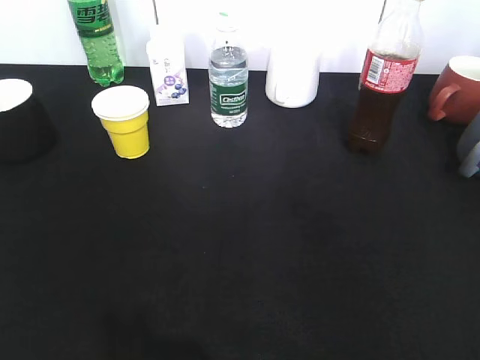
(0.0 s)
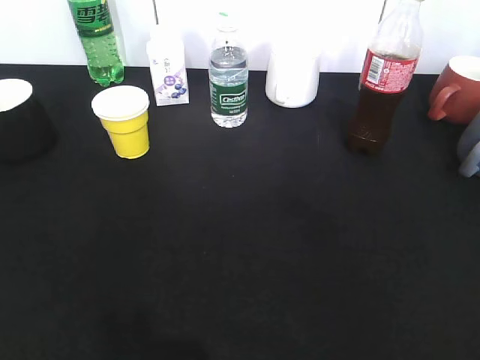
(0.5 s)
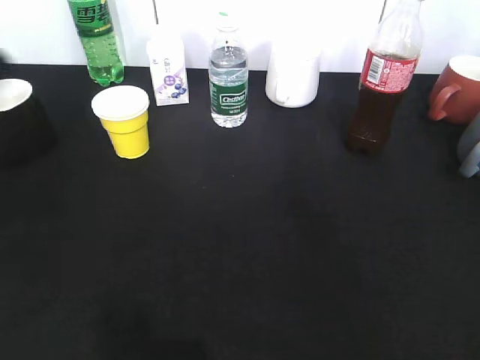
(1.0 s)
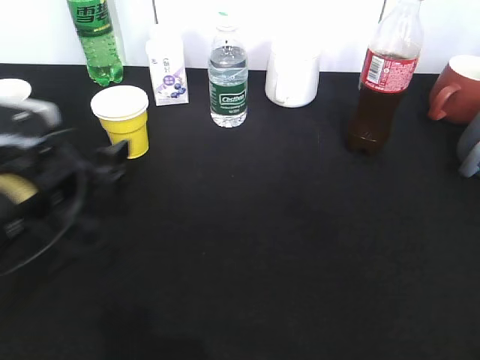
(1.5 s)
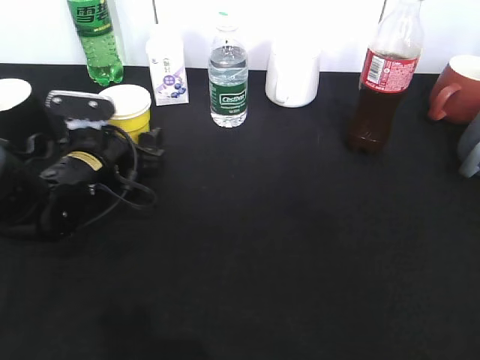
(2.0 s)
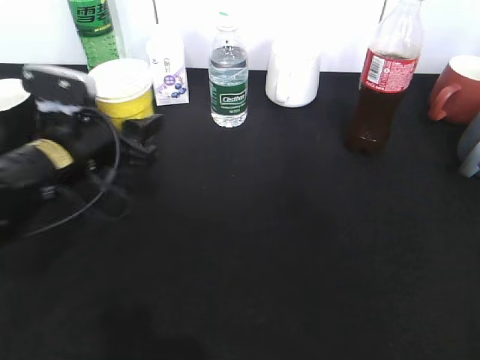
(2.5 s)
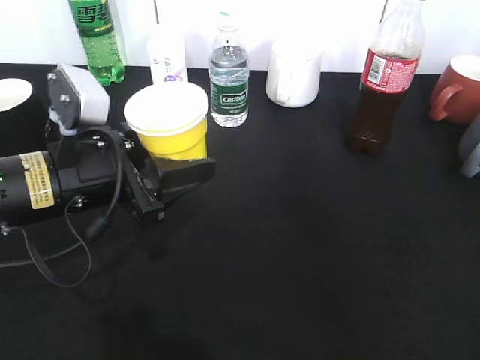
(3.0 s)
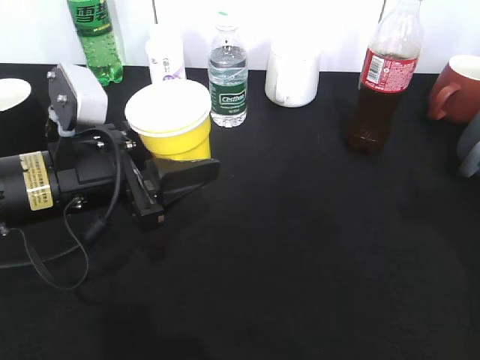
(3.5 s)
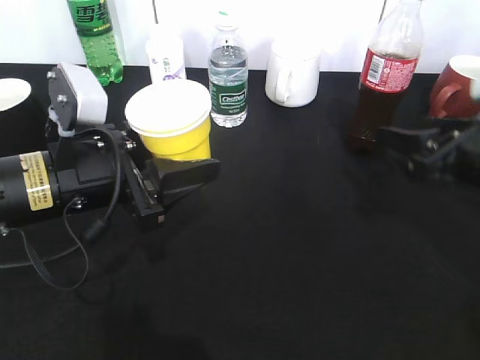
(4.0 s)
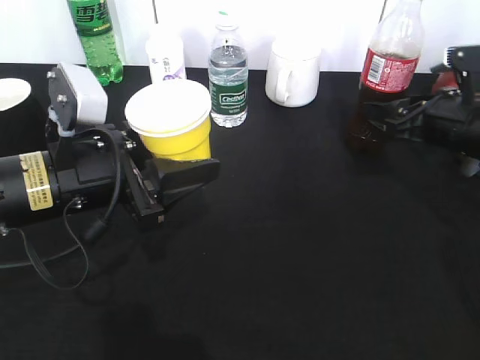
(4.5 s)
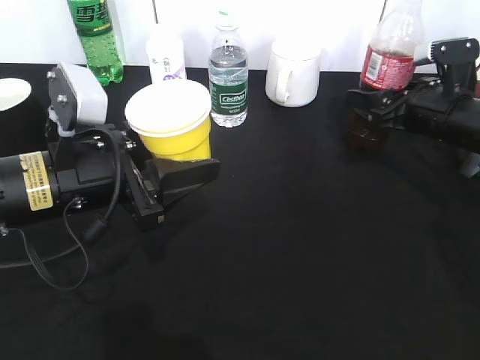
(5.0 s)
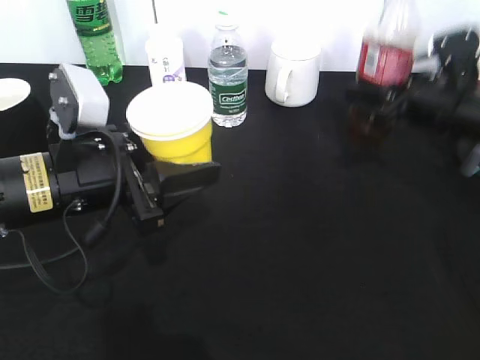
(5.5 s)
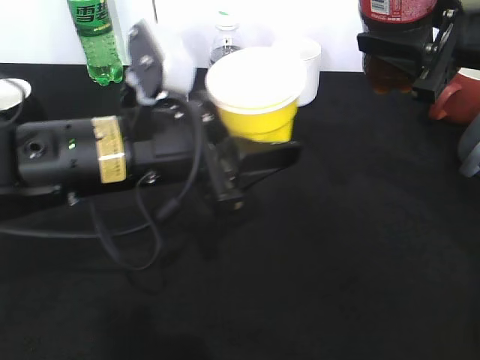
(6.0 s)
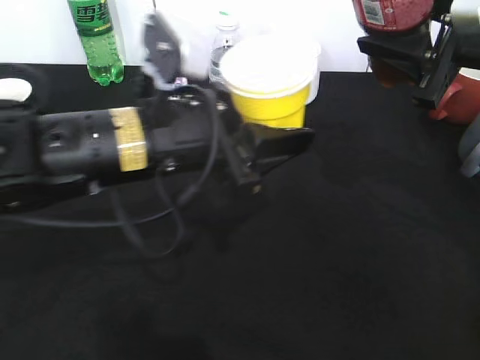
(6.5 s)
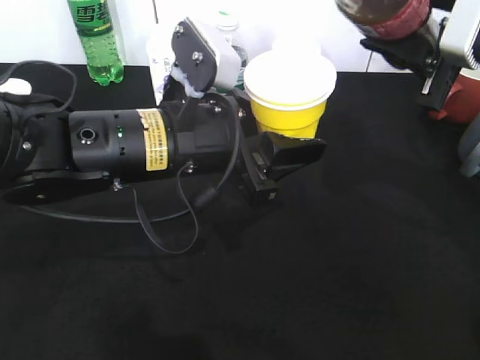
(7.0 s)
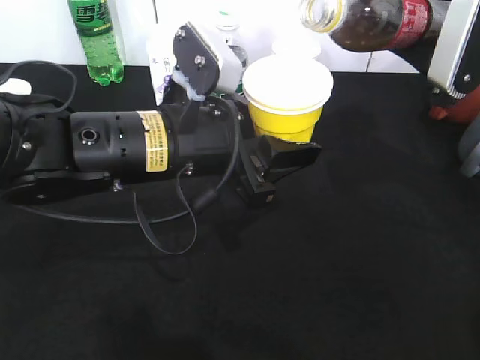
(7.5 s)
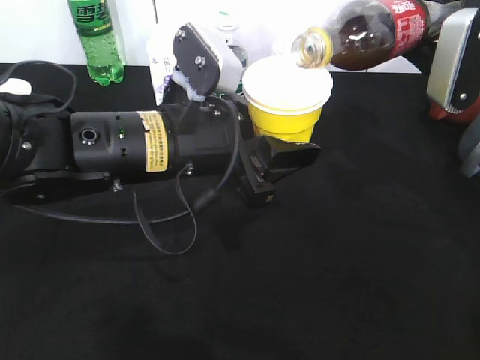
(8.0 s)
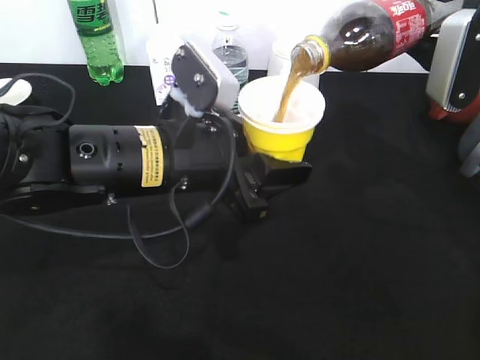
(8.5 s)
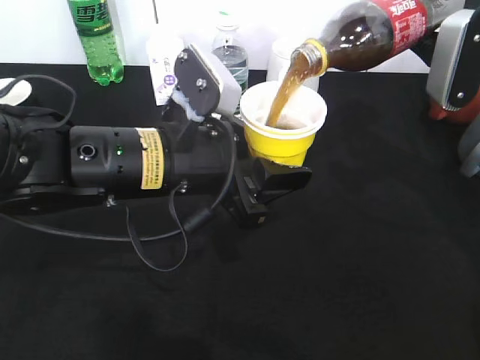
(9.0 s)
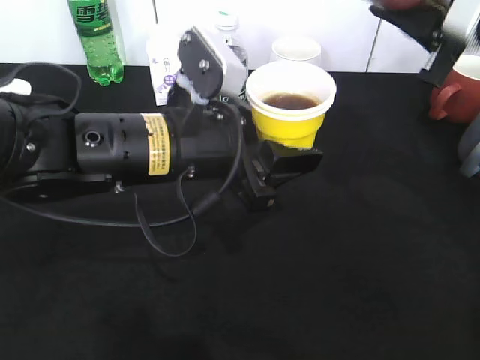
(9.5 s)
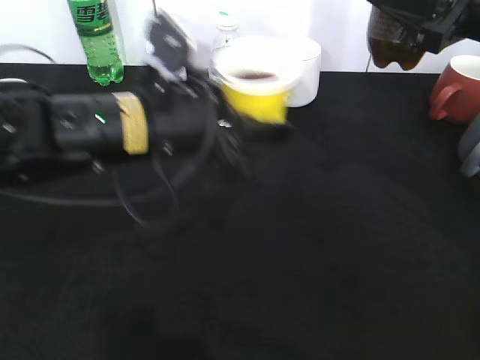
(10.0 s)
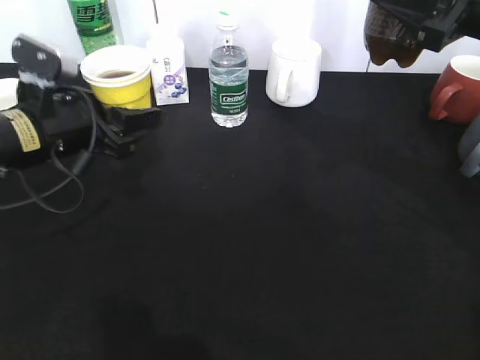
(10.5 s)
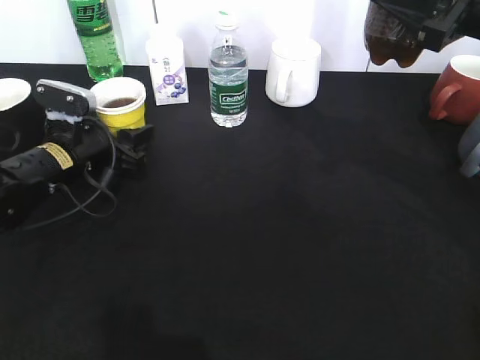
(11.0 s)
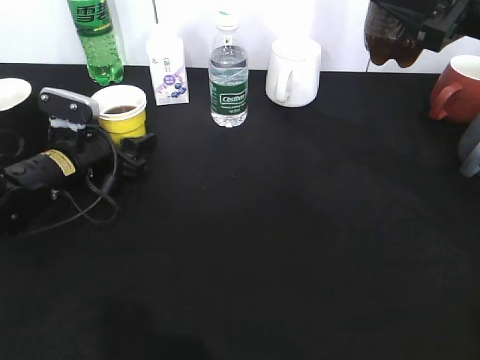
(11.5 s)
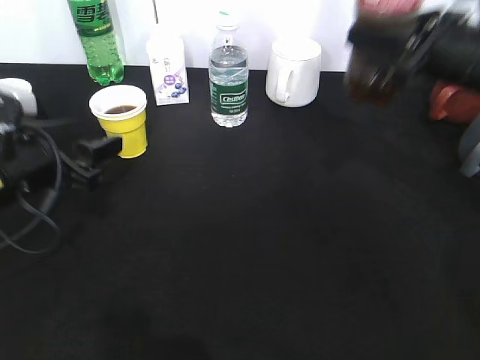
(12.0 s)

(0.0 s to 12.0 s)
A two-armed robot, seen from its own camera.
Step, 0.0 s - 2.0 s: Grasp the yellow paper cup with left gripper.
Step, 3.5 s - 5.0 s: Grasp the bottle with cola with right gripper.
Step, 6.0 s - 9.0 s: Pour the cola from bottle to cup with right gripper.
Step, 9.5 s - 11.5 s: Place the yellow paper cup on the table with left gripper.
0.0 s - 2.0 s: The left gripper heads forward, downward and to the right, covering roughly 40 cm, and opens.
2.0 s - 4.0 s: The left gripper travels backward and upward by about 15 cm, and closes up. The right gripper shifts some 25 cm forward.
4.0 s - 6.0 s: The left gripper travels to the right by about 5 cm; the right gripper goes approximately 10 cm upward, and closes its fingers.
10.0 s - 12.0 s: The right gripper is displaced downward by approximately 5 cm; the left gripper moves to the left, about 15 cm.

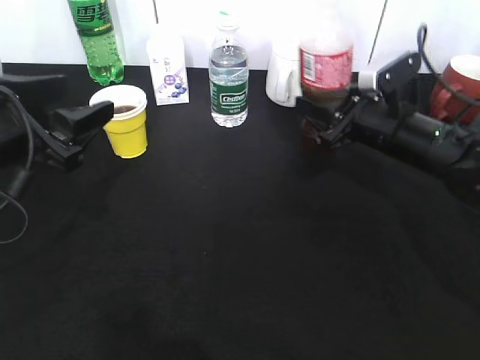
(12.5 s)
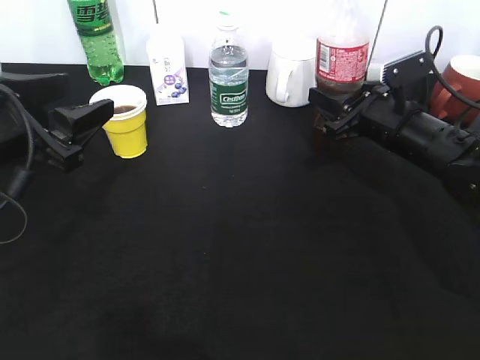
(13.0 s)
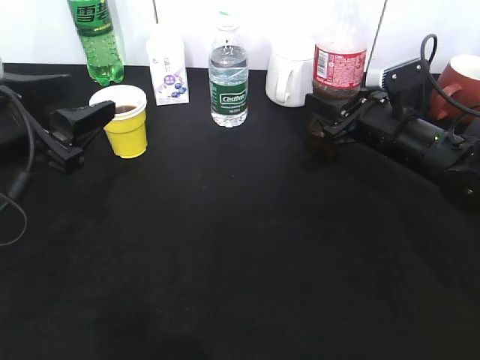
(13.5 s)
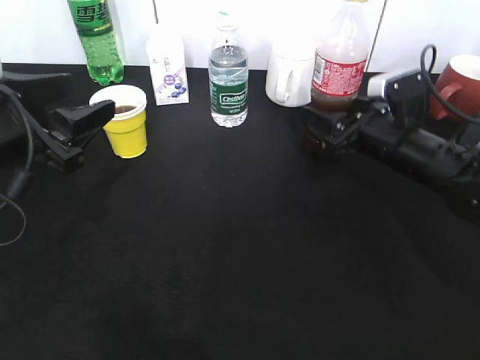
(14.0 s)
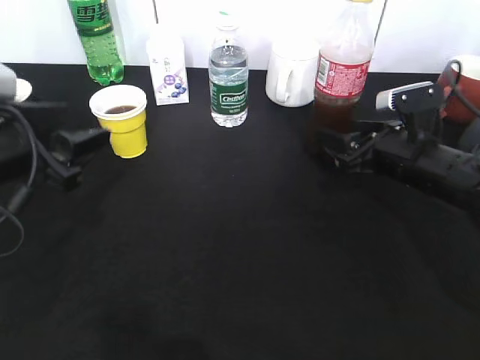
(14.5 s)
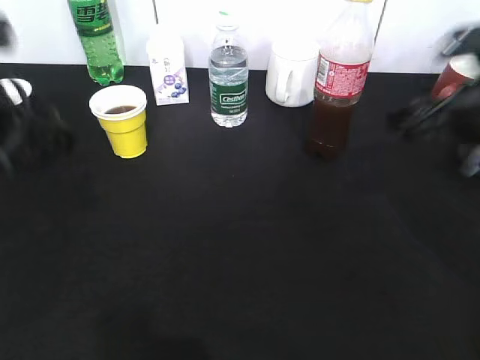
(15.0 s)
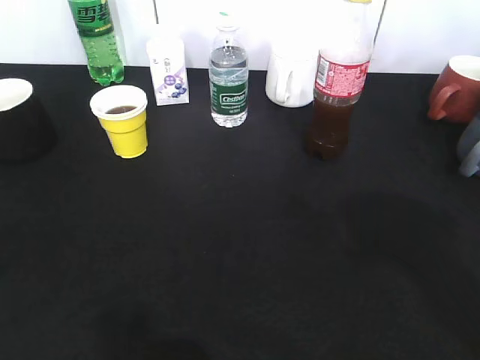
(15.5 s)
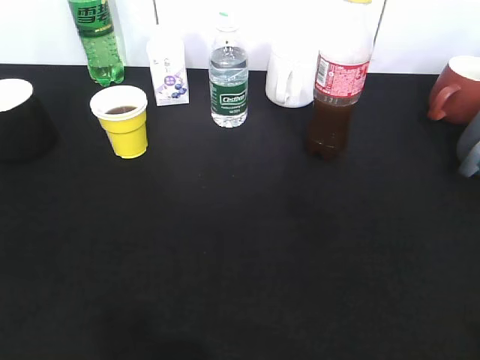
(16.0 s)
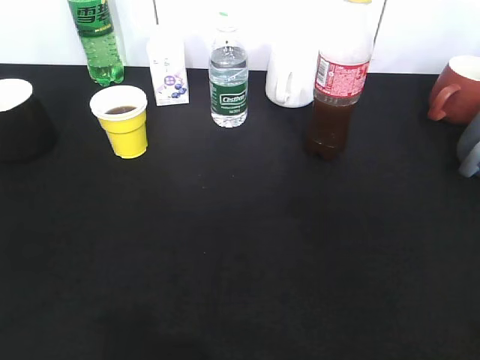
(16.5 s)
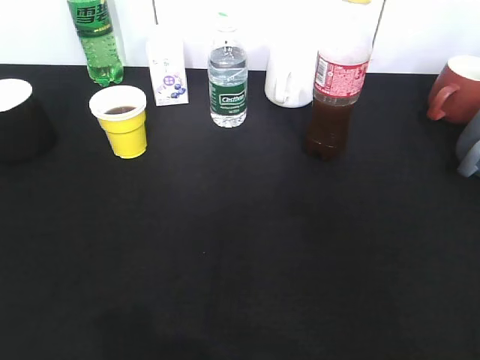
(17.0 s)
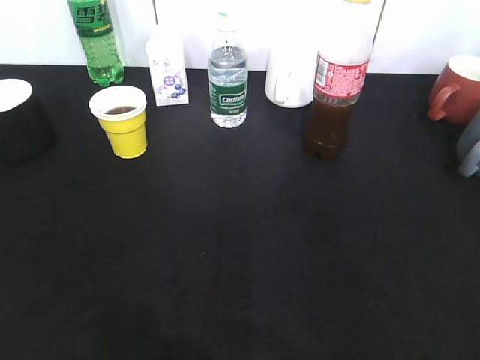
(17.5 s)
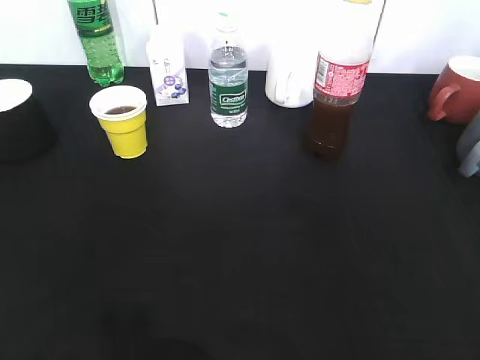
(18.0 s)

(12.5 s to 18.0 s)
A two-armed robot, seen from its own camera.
Step, 12.5 s - 14.5 s: Place the cola bottle on the table with right gripper.
12.5 s - 14.5 s: The right gripper opens its fingers.
14.5 s - 16.0 s: The right gripper goes roughly 35 cm backward and upward. The left gripper moves backward, about 20 cm.

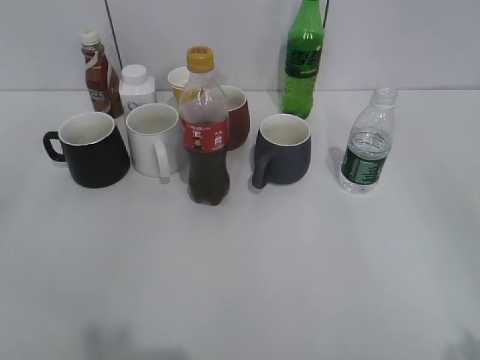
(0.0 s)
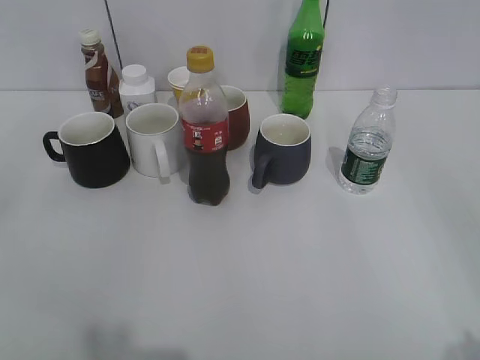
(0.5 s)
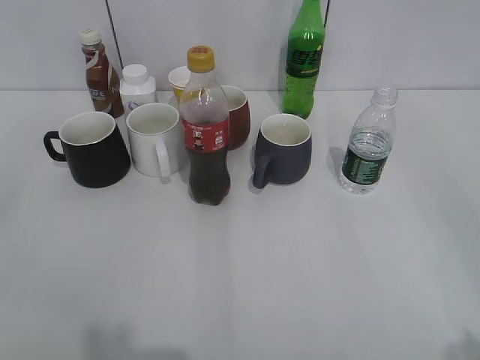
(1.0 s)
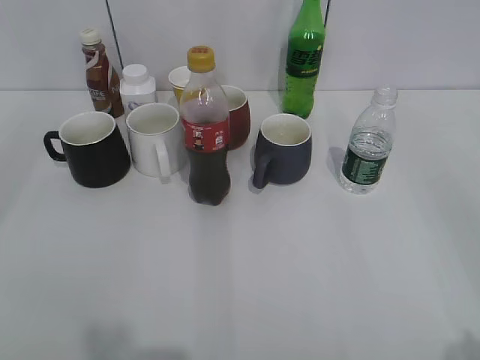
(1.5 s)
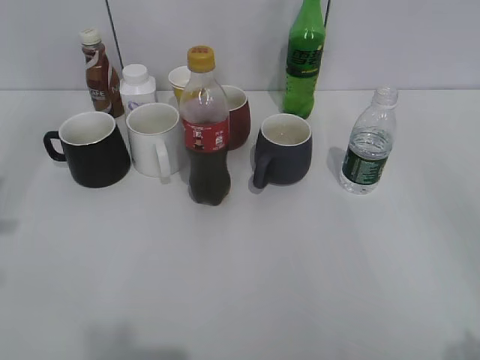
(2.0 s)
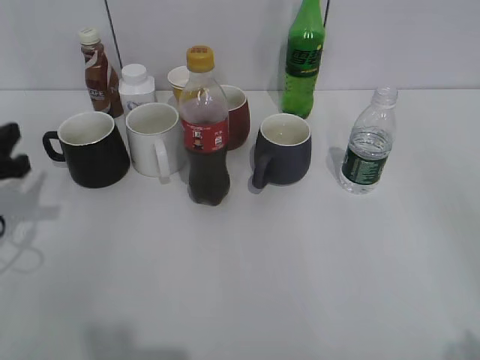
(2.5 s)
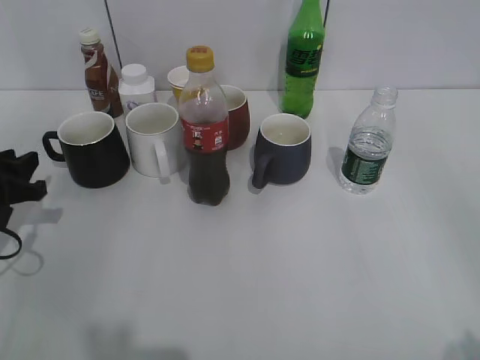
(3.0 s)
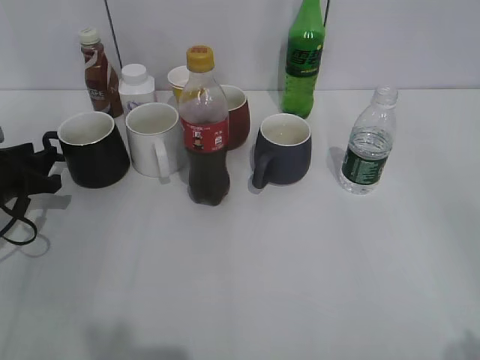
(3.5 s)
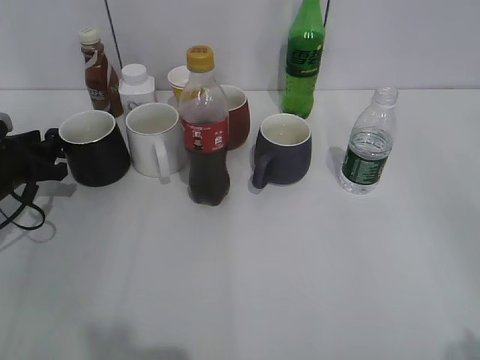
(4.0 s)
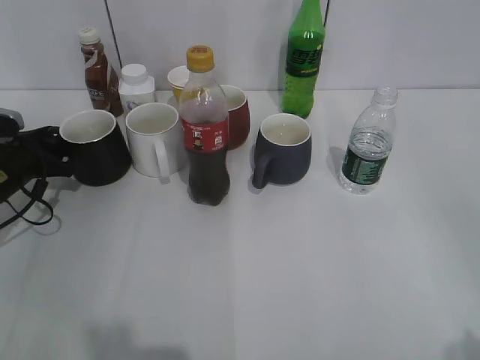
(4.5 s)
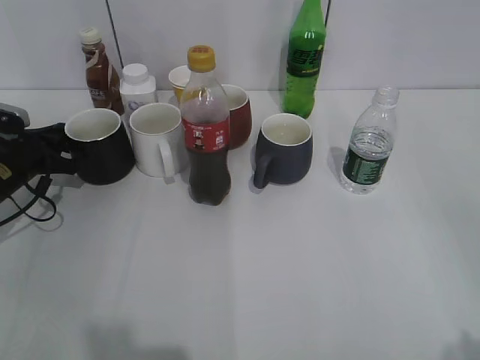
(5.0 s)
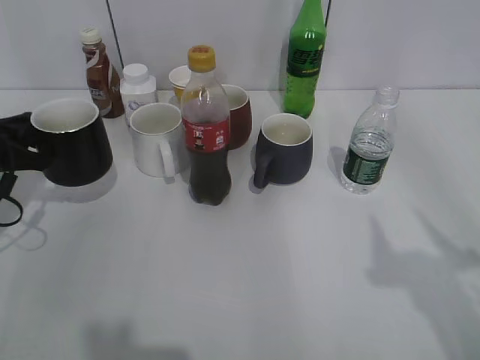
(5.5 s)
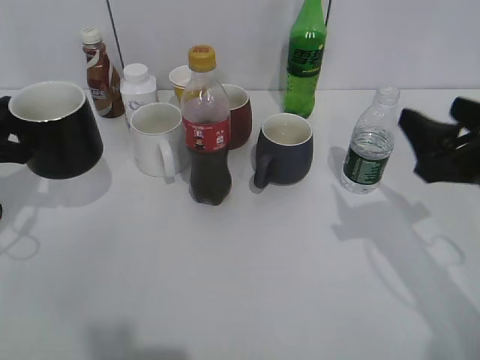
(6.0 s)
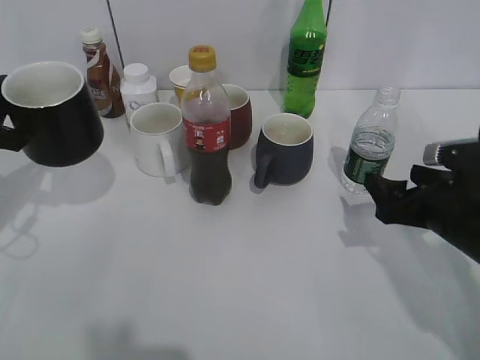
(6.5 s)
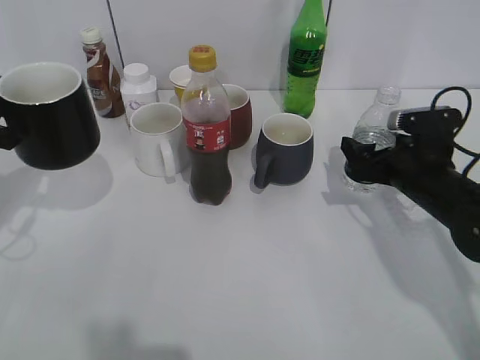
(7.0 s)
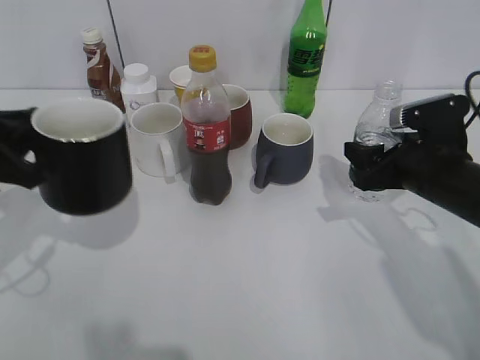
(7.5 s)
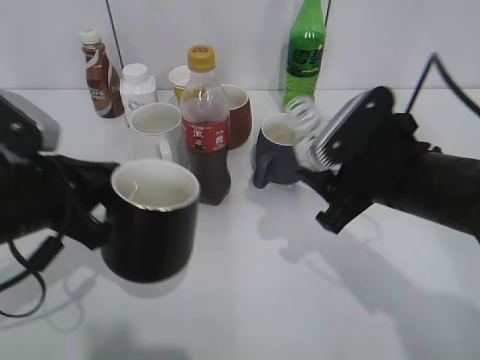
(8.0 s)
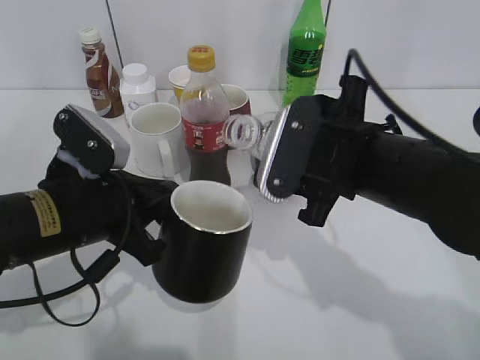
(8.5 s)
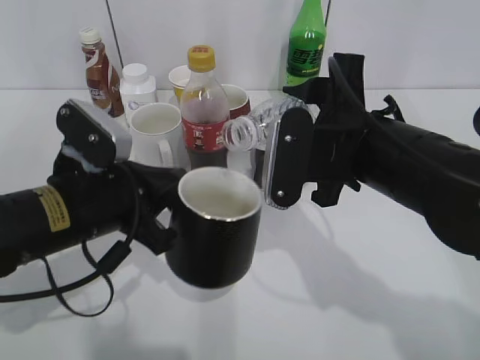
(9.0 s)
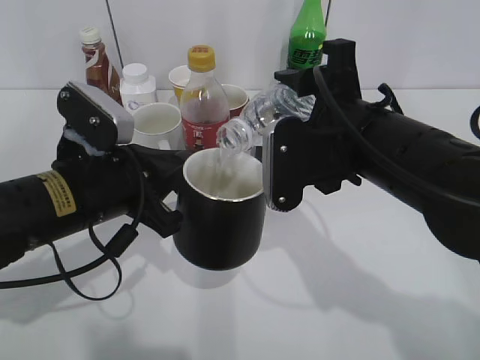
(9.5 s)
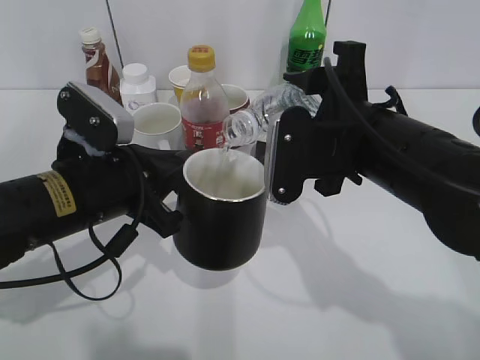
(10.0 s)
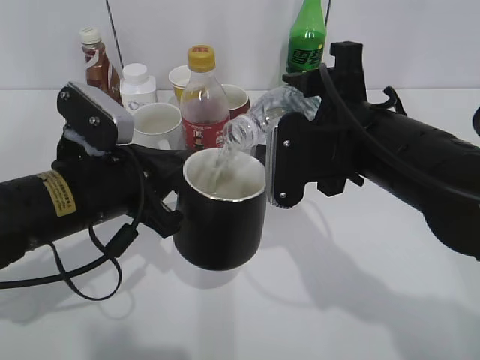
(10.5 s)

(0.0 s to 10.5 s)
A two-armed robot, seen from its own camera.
Step, 1.5 s - 4.5 s: Grasp the black cup with left gripper.
Step, 5.0 s - 6.0 s: Lift the black cup with left gripper.
2.0 s - 4.0 s: The left gripper travels downward and forward by roughly 30 cm.
4.0 s - 6.5 s: The right gripper is displaced forward and downward by about 30 cm. The left gripper heads upward and backward, covering roughly 15 cm, and closes.
6.5 s - 8.5 s: The left gripper heads to the right and backward, covering roughly 15 cm; the right gripper moves to the left and upward, some 15 cm, and closes up.
